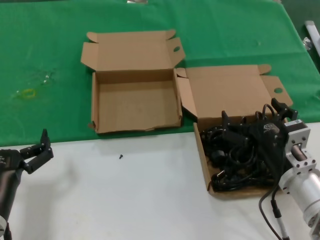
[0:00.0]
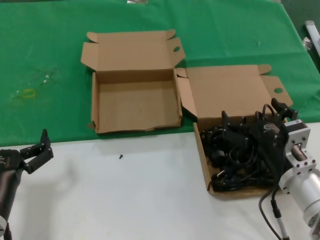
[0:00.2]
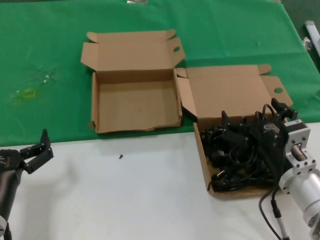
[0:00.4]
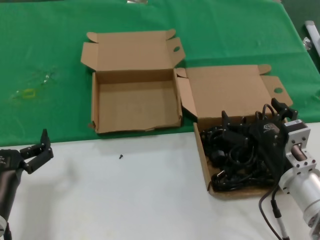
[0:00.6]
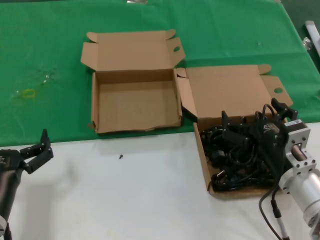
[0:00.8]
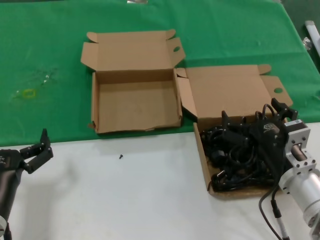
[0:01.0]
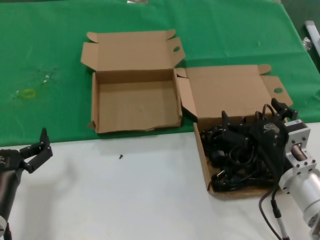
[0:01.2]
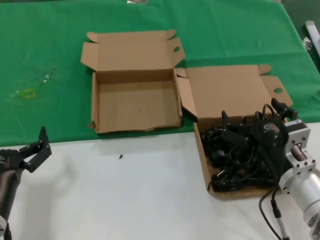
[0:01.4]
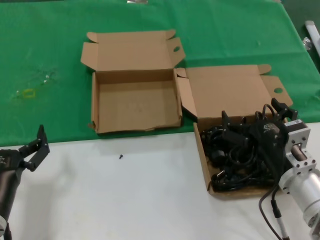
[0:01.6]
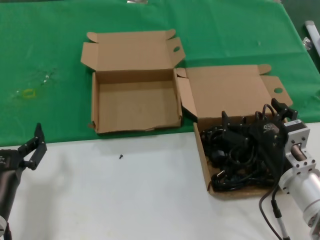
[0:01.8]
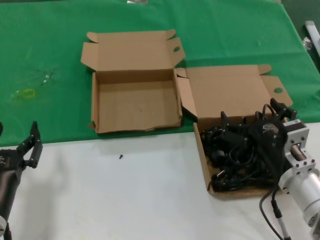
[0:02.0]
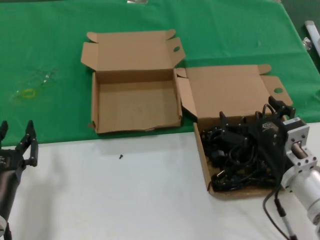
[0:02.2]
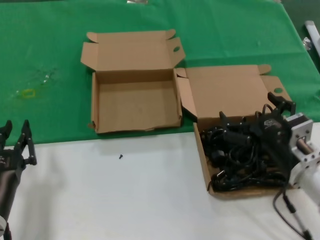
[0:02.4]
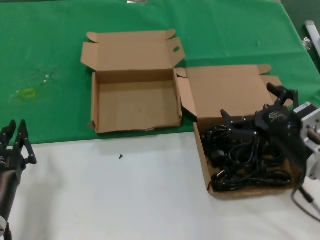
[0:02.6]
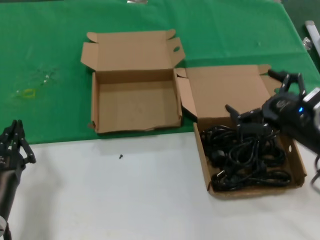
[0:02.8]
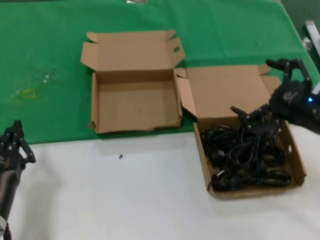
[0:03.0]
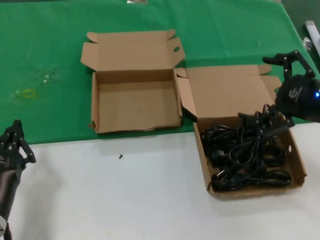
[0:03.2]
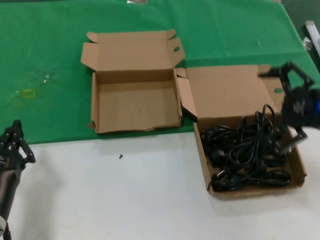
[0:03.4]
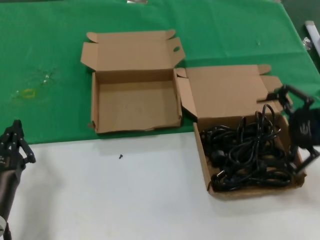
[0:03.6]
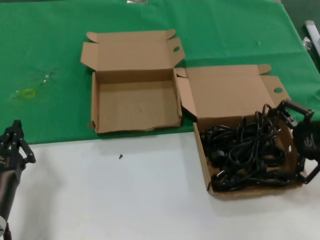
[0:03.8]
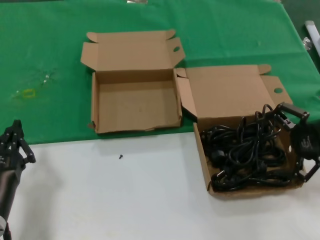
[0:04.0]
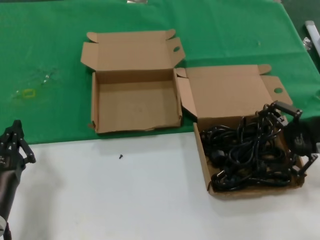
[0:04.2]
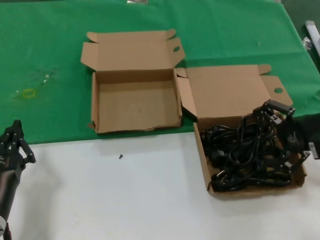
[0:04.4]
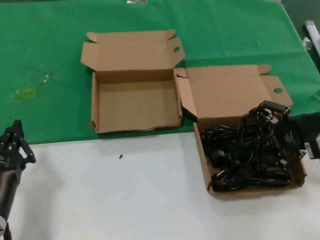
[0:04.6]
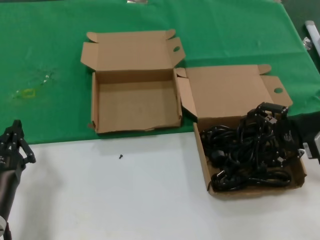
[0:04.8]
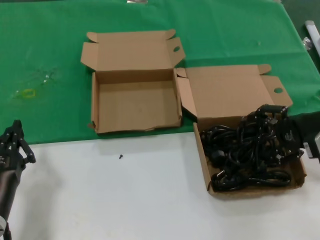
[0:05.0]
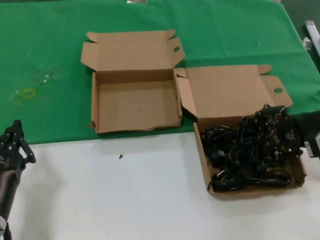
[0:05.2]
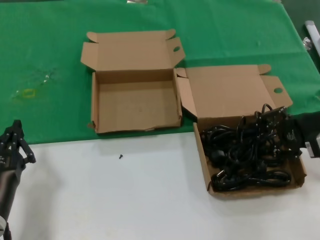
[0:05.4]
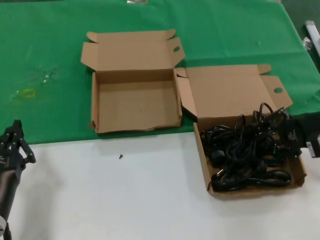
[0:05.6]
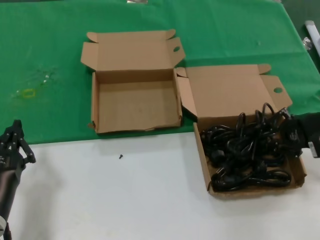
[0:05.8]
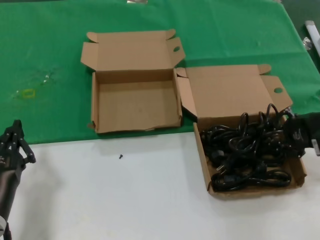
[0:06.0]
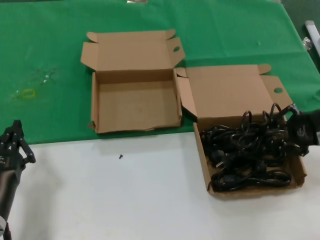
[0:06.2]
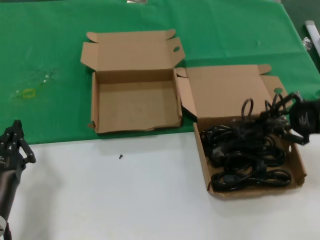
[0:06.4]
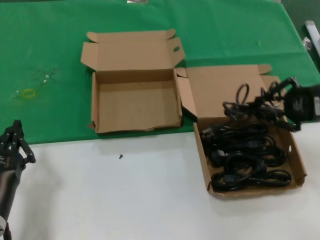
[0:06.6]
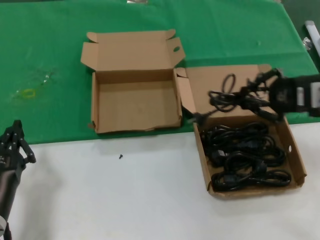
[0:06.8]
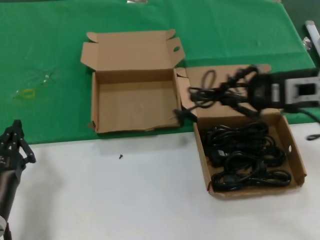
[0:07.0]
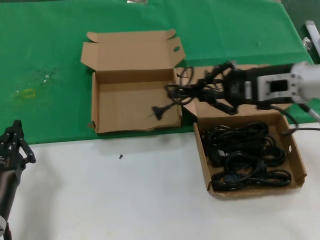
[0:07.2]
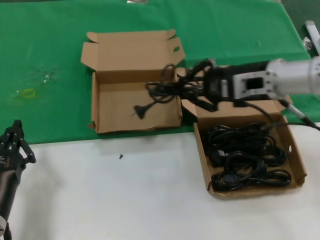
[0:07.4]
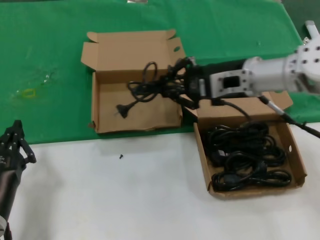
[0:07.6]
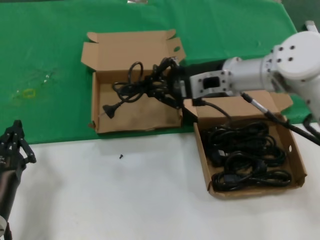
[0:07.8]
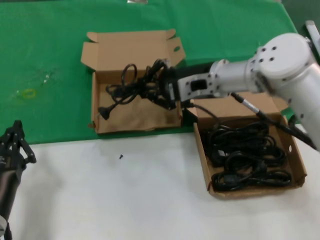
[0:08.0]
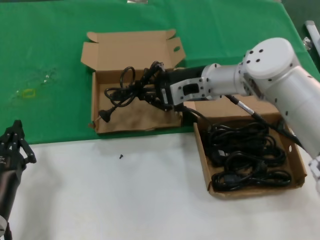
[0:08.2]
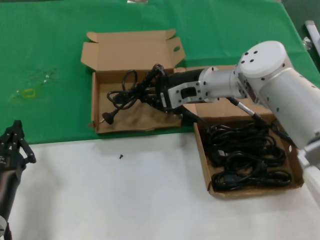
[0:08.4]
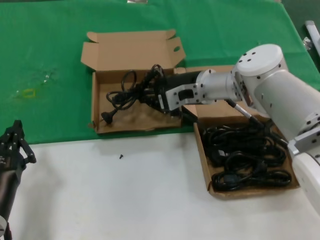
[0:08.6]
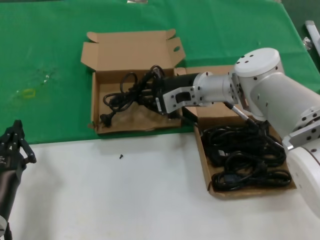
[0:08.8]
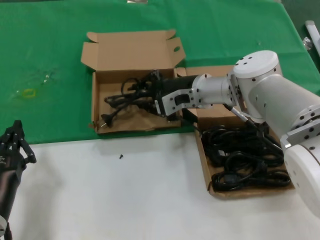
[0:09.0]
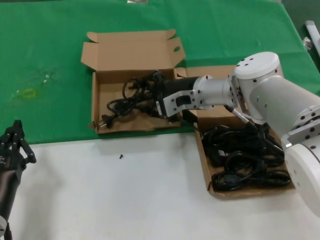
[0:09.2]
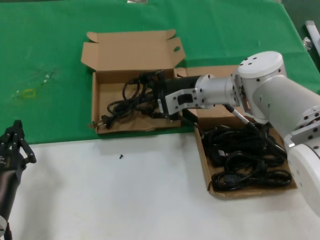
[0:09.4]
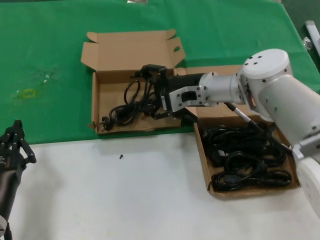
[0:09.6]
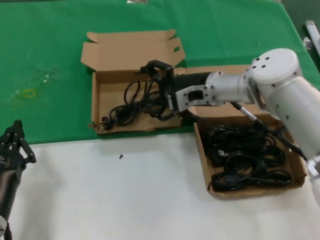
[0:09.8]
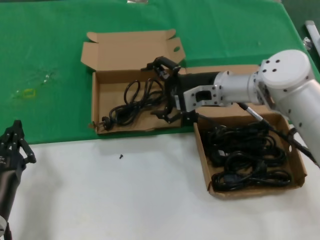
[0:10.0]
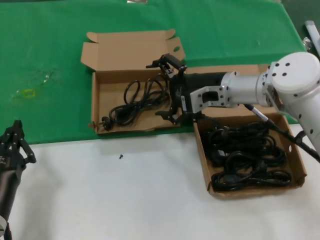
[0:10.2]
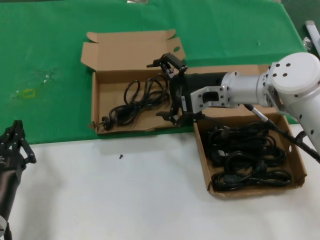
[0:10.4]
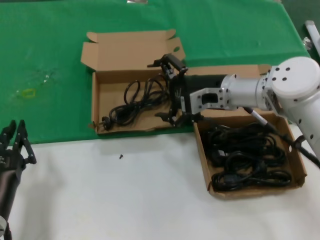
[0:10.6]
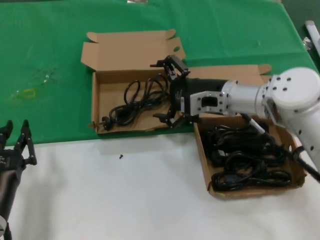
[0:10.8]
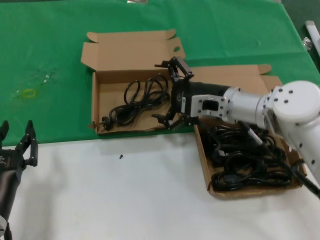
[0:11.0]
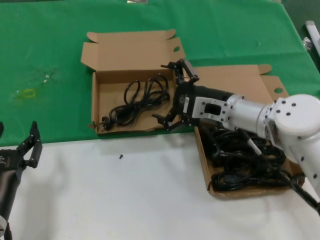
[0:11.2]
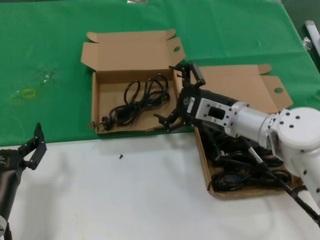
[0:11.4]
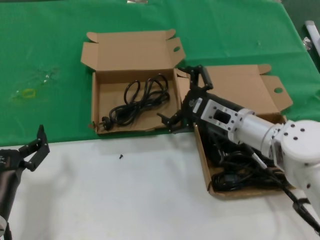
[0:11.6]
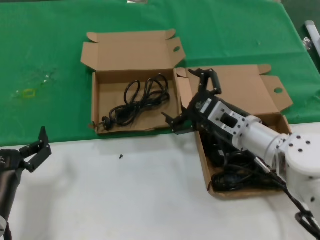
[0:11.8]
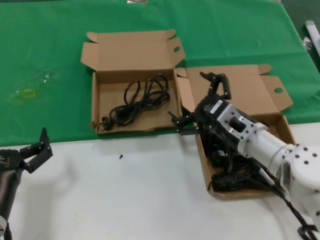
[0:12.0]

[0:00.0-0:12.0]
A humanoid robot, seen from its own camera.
Task of the whole recording: take the parts from the box containing them and put them into an empty box.
Step, 0:00.0 to 0:05.8: Grasp the data cable.
Step, 0:06.0 to 0:09.4: Place the data cable in the another box.
0:00.0 to 0:01.6: Both hands stay about where they are.
0:01.6 to 0:03.0: The right hand moves upward and to the right, some 15 cm.
0:03.0 to 0:04.4: The right hand shifts some 10 cm forward and to the right.
0:04.4 to 0:06.0: The hands move only a little.
0:06.0 to 0:07.6: The right hand is displaced to the left and forward by roughly 20 cm.
0:07.6 to 0:09.0: The right hand moves to the left, downward and forward, roughly 15 cm.
0:09.0 to 0:10.4: The right hand shifts by approximately 5 cm.
0:10.4 to 0:12.0: The right hand goes approximately 15 cm backward and downward.

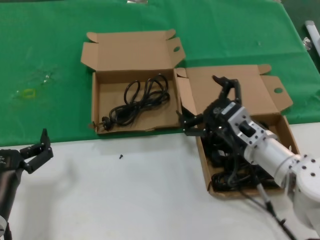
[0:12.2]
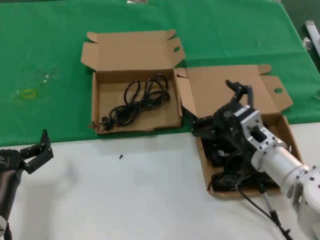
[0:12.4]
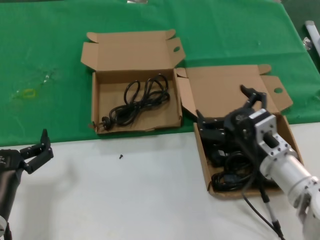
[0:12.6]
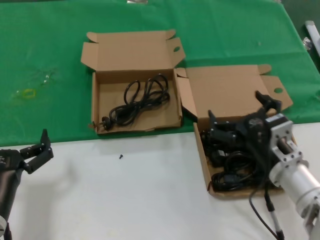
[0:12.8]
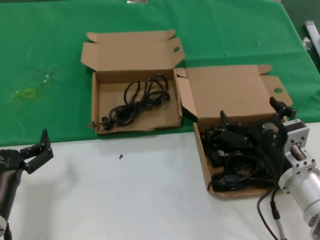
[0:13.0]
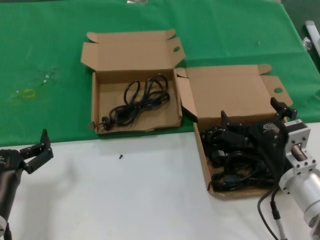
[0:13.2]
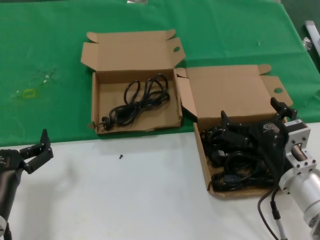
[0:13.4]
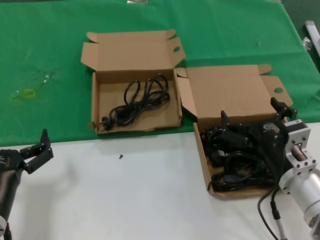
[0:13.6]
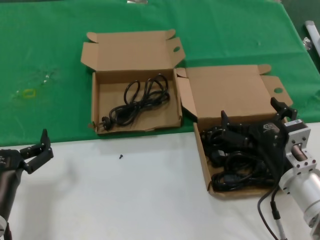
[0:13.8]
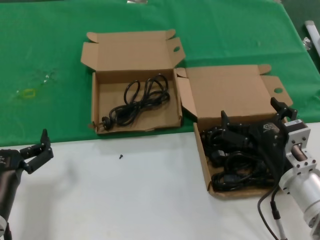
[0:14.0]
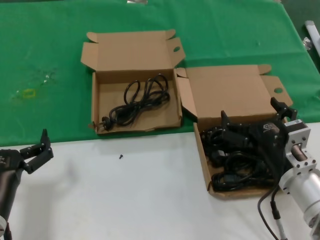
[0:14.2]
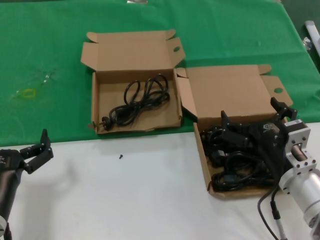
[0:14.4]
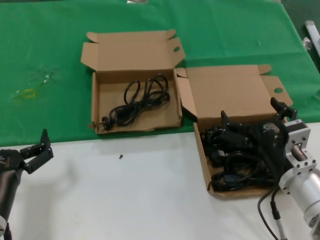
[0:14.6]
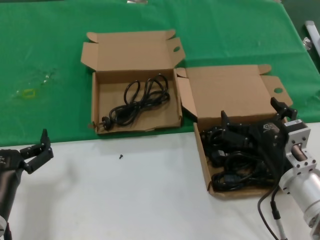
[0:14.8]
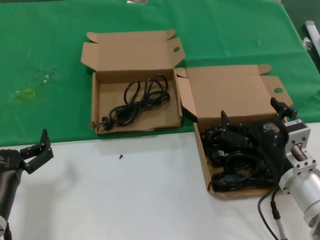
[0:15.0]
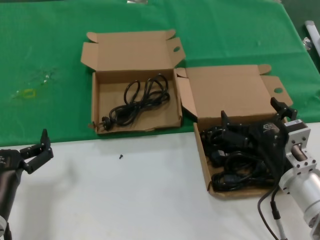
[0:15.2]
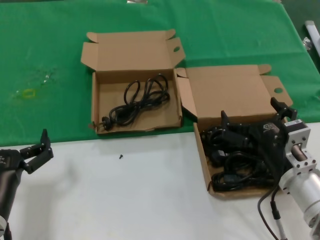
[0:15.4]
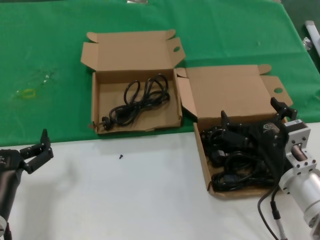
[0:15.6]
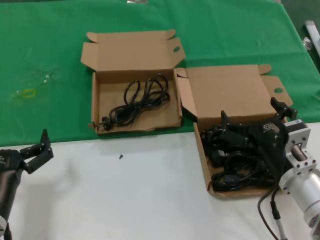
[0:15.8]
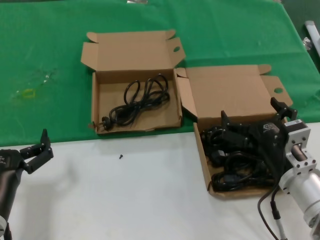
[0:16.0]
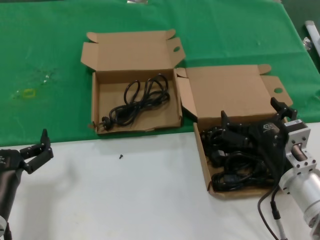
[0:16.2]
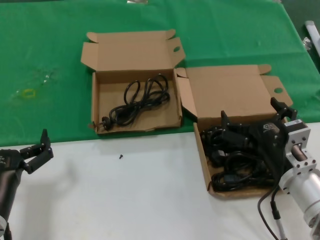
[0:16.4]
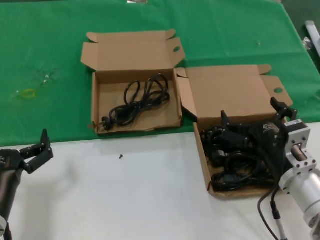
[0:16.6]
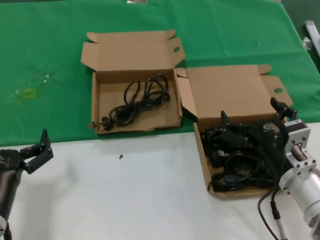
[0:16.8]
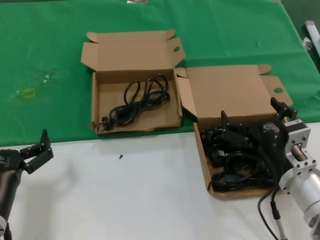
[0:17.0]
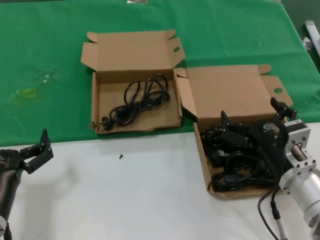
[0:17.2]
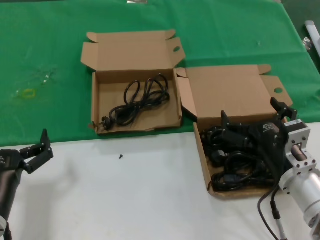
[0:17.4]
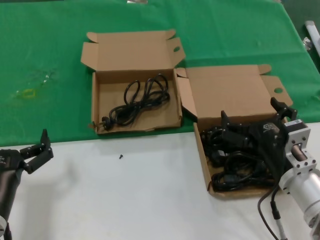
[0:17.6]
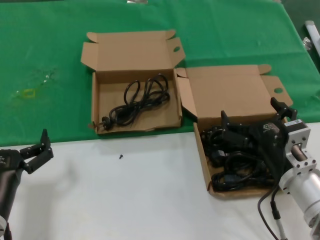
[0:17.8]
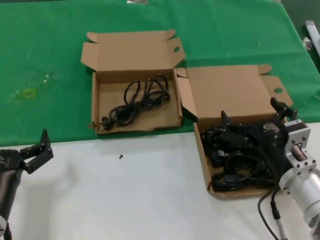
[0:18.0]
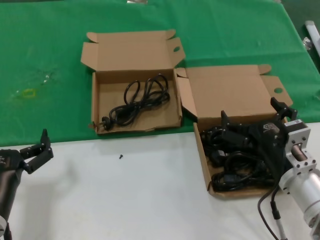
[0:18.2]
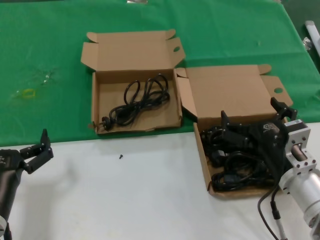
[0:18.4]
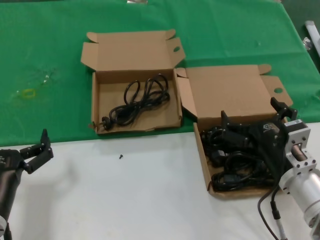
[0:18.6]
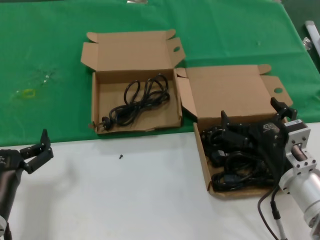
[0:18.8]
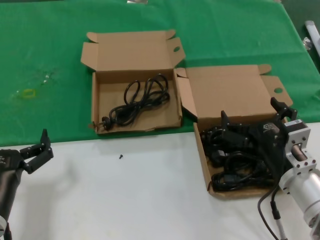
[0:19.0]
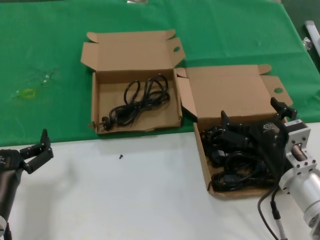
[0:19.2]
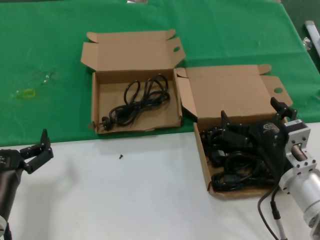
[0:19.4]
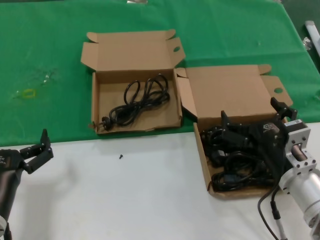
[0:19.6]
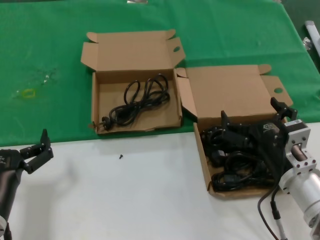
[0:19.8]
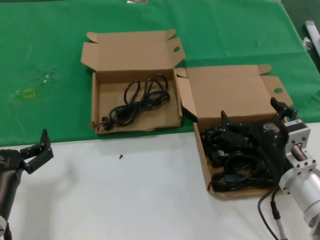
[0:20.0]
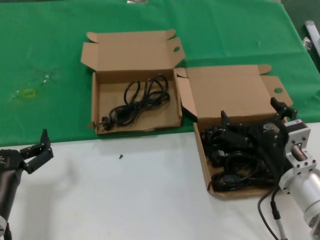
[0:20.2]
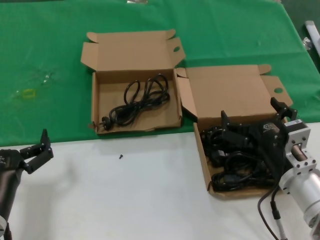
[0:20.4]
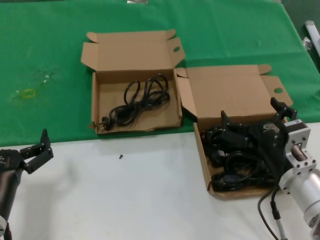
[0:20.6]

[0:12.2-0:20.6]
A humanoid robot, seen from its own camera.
Task of the whole recording: take the parts from the box containing them and put them into an empty box.
0:12.2 to 0:13.6: The right hand moves backward, roughly 10 cm.
0:13.6 to 0:20.6: Both hands stay put.

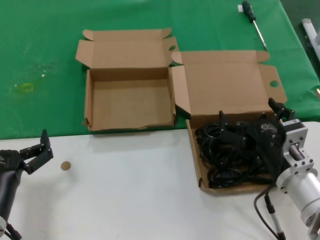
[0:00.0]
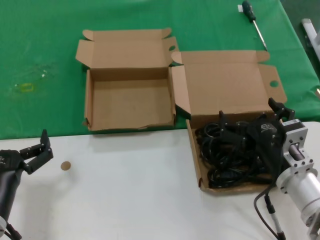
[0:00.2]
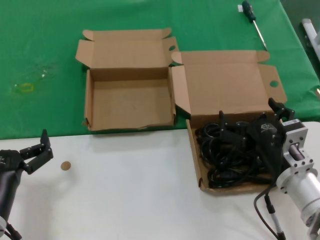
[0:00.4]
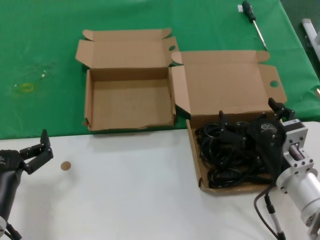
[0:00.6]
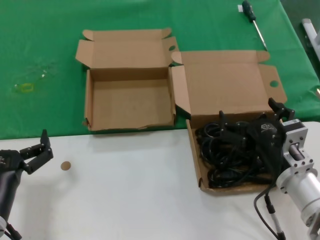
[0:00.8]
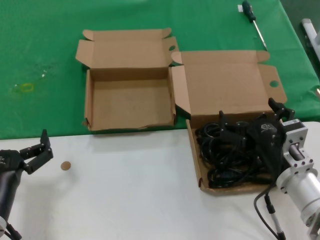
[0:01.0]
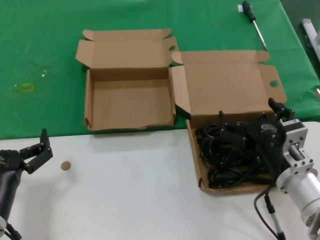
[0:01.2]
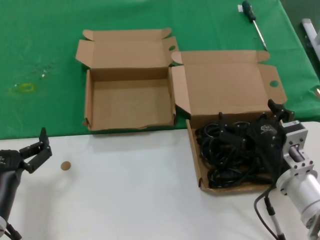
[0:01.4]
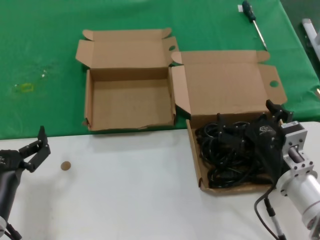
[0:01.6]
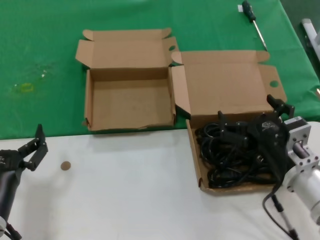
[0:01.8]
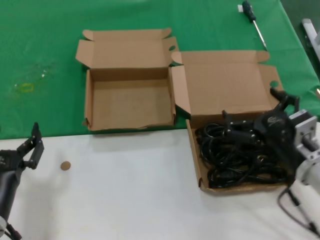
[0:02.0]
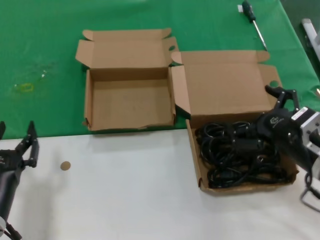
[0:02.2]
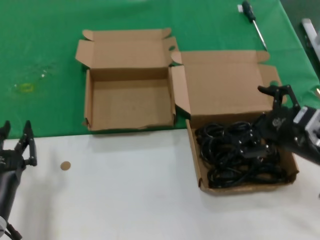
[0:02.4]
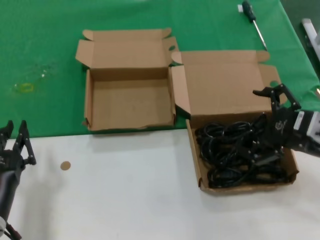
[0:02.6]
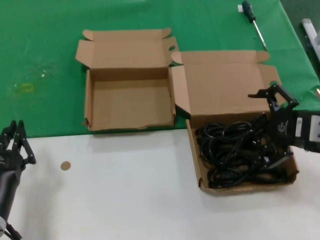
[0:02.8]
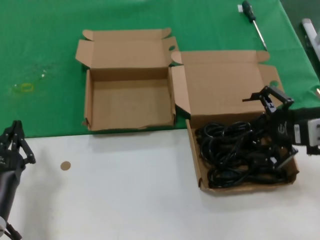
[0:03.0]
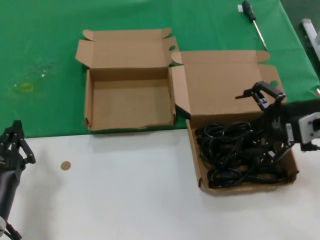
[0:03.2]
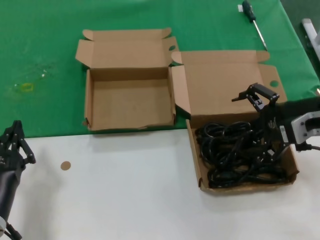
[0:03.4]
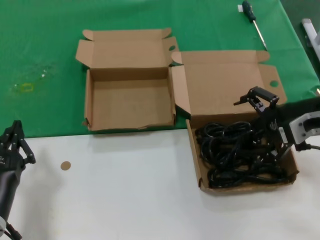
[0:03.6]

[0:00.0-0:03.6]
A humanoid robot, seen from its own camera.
Task of the whole recording: take the parts from the box containing them and put them into an empty box.
0:00.0 to 0:01.8: Both hands stay about where they are.
0:01.8 to 0:03.6: The right hand goes some 20 cm upward, forward and to the right.
